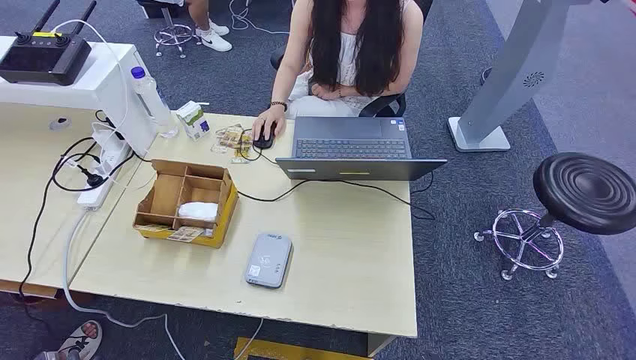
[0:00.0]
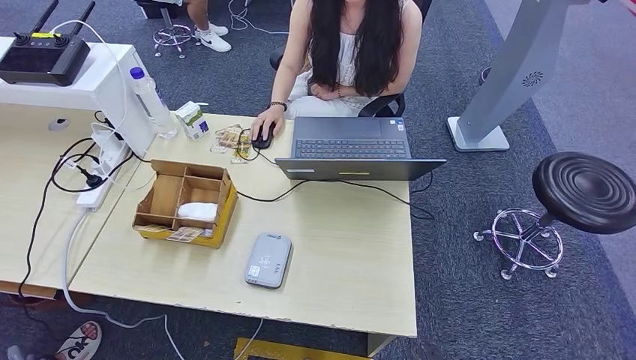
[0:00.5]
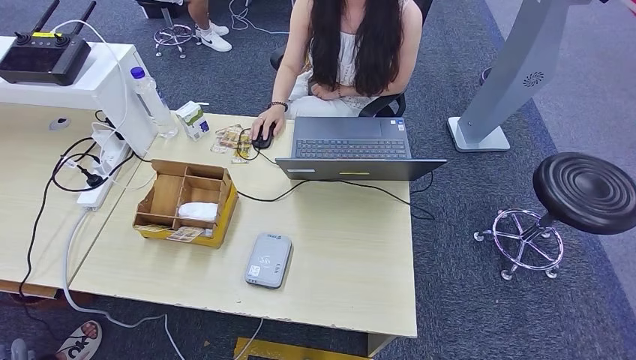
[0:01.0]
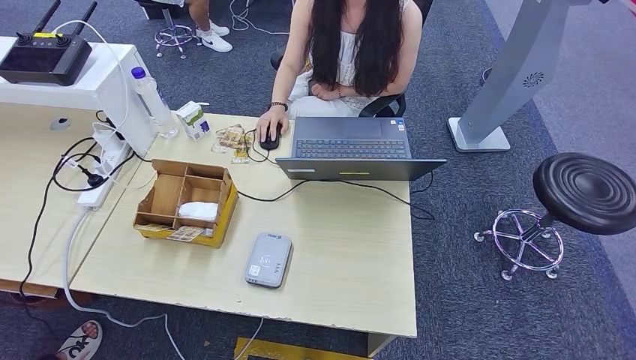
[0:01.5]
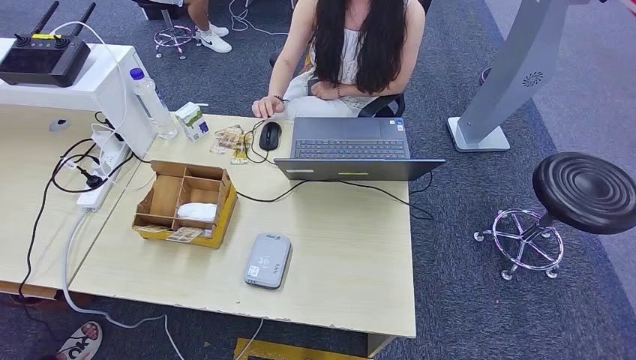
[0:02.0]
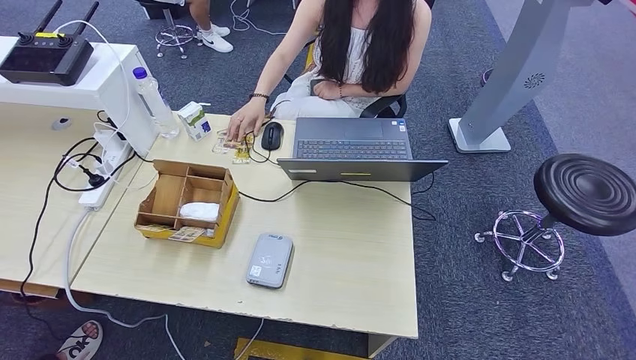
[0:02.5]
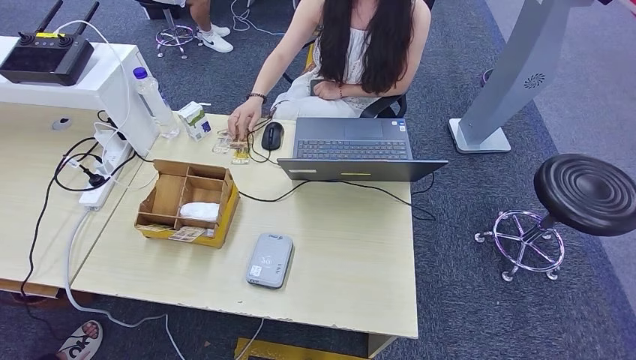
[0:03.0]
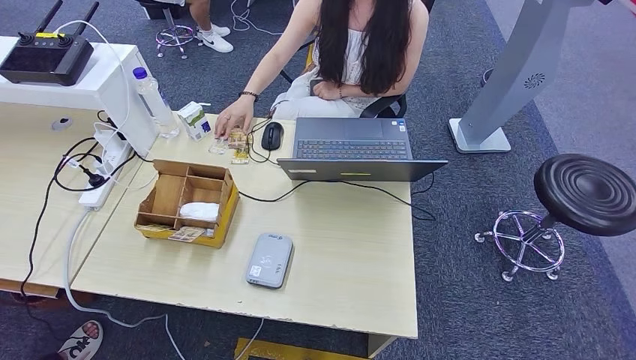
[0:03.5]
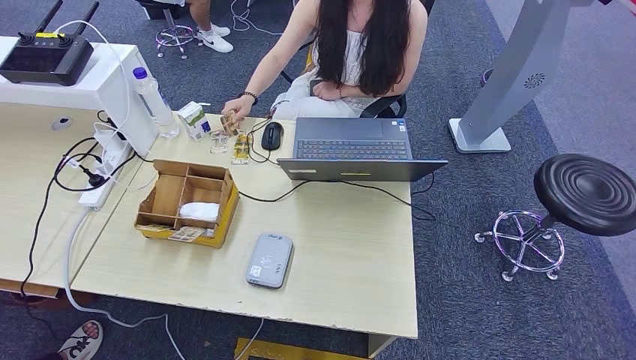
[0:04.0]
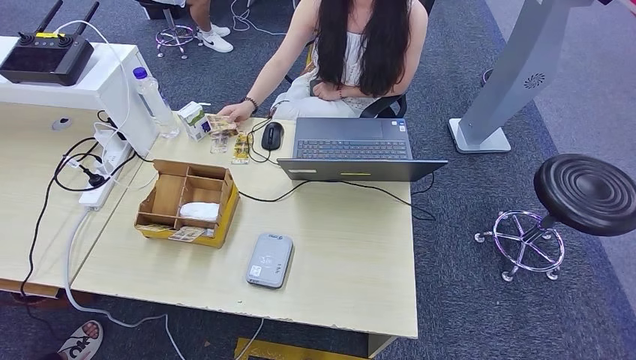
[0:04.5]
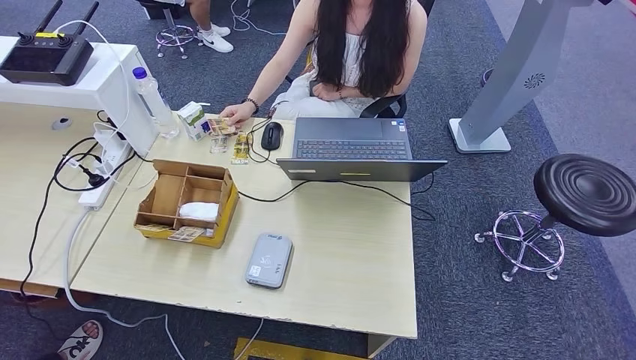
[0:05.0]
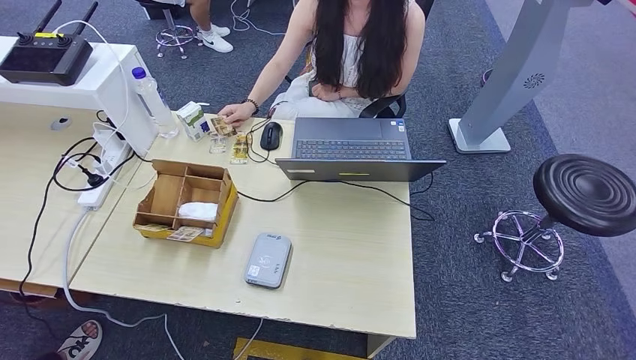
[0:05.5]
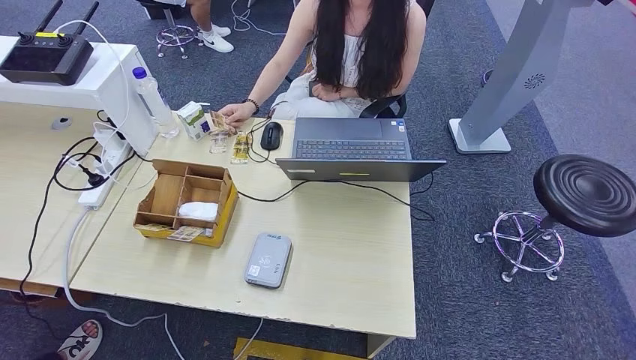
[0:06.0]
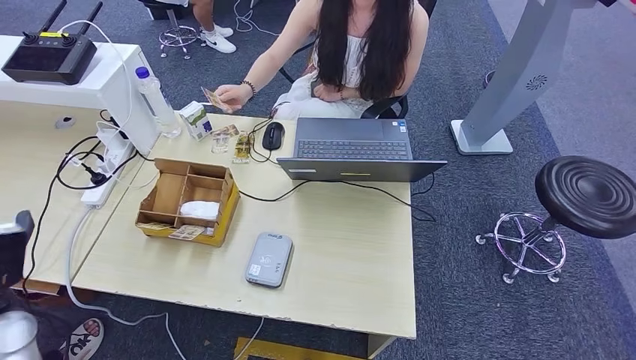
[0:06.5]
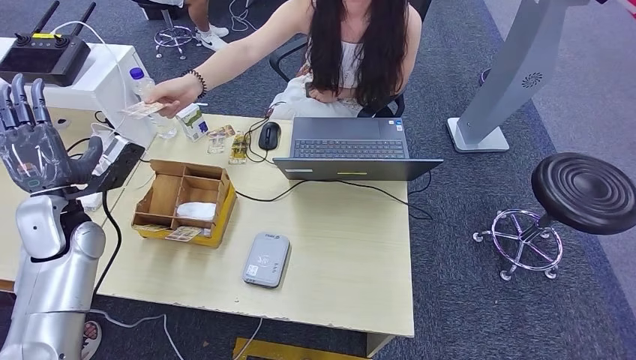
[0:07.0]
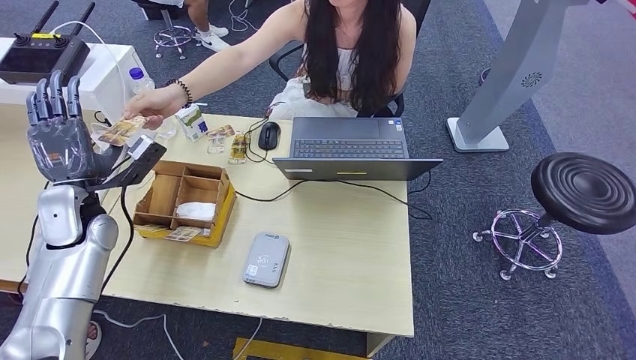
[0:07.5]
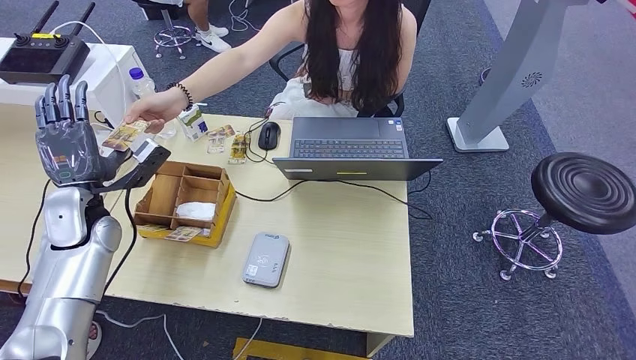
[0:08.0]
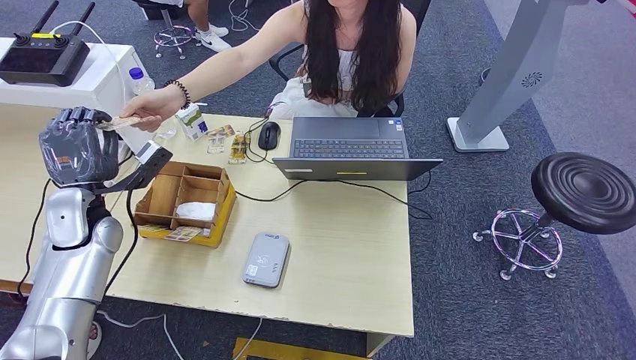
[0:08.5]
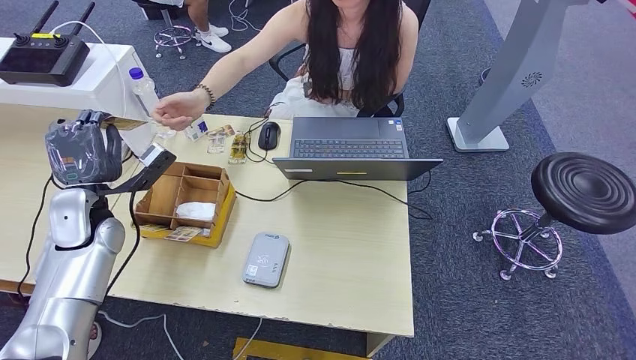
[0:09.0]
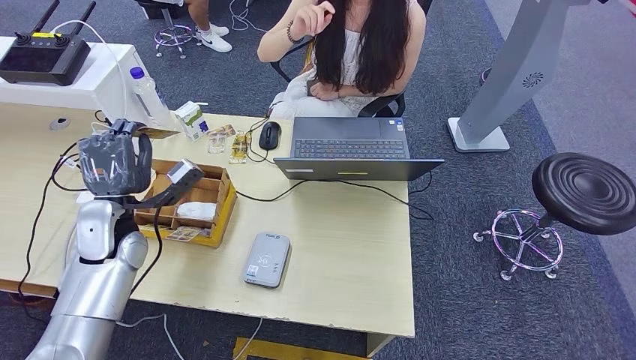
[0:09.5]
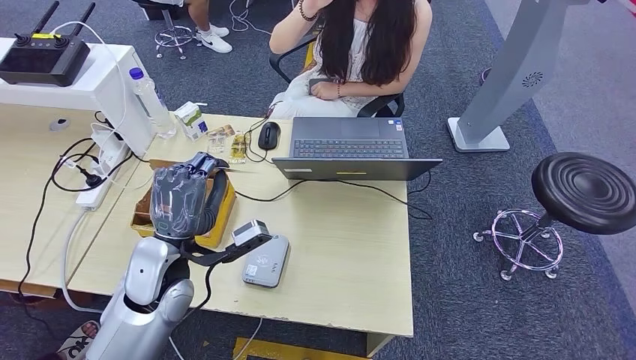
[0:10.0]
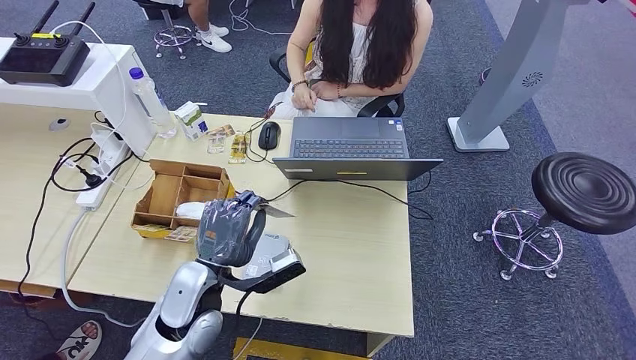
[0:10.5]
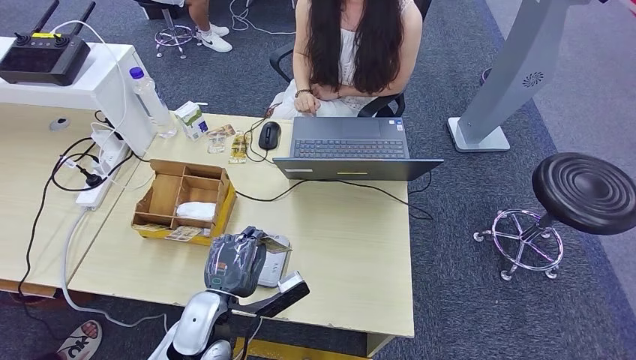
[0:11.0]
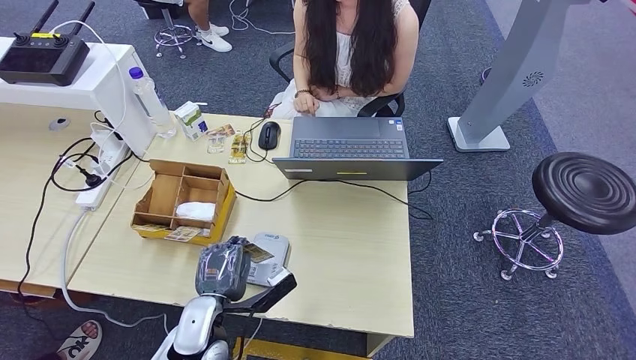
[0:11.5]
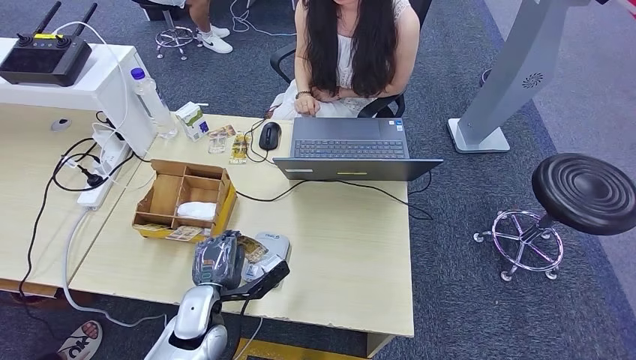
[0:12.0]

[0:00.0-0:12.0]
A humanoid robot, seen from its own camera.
Step, 0:00.0 to 0:09.0: Take the ID card from the person's hand.
0:02.0 to 0:04.0: The left hand travels to the right by approximately 15 cm.
0:04.0 to 0:06.0: The left hand is displaced to the left and upward by some 30 cm.
0:10.0 to 0:12.0: The left hand goes some 15 cm downward and backward.

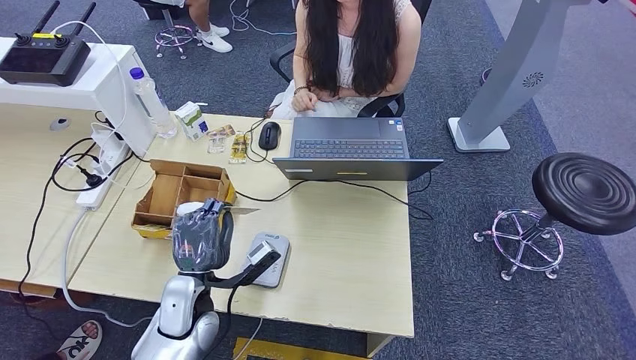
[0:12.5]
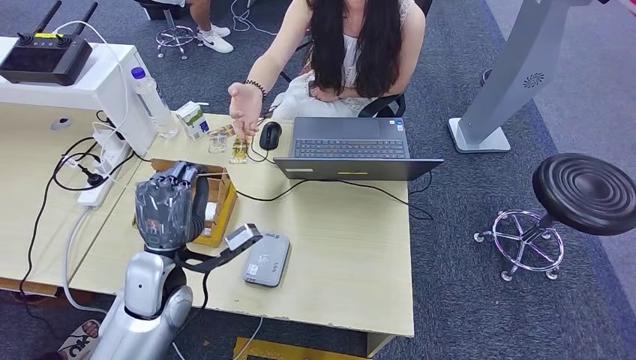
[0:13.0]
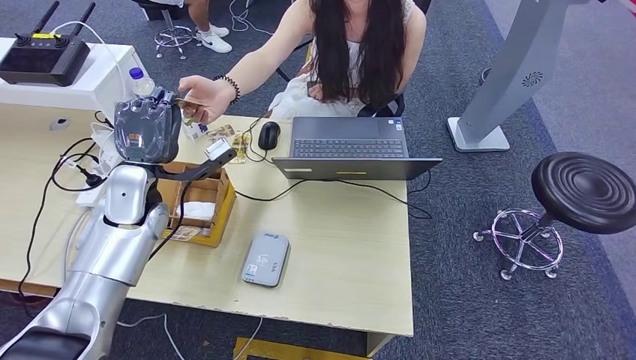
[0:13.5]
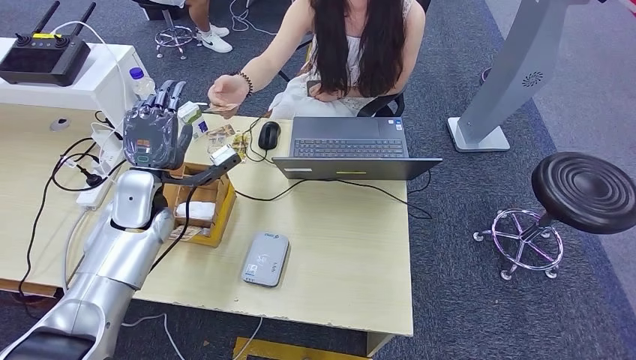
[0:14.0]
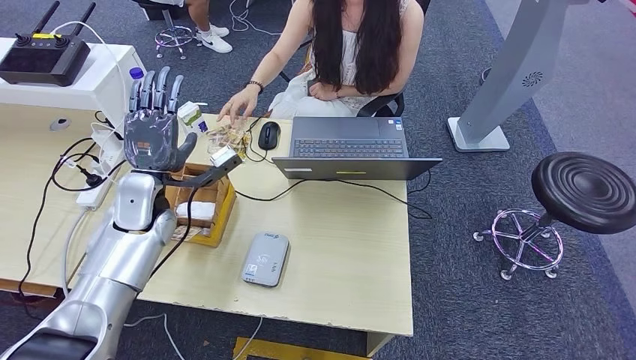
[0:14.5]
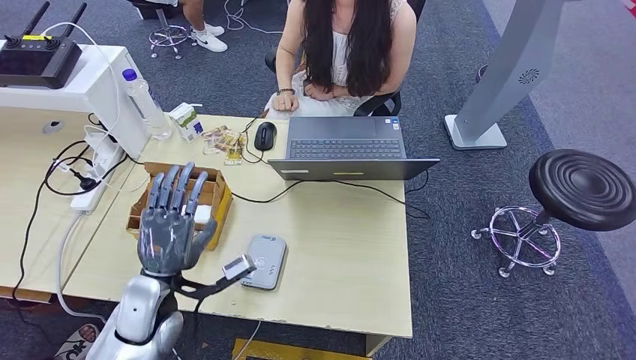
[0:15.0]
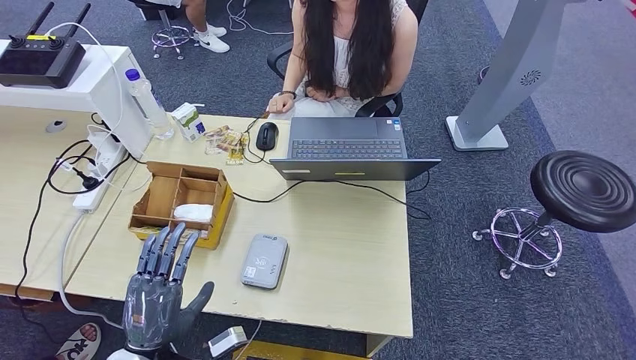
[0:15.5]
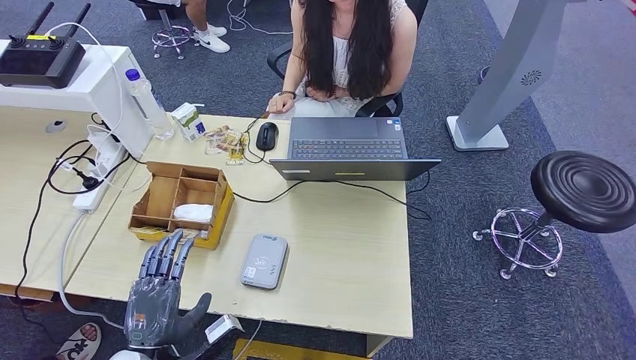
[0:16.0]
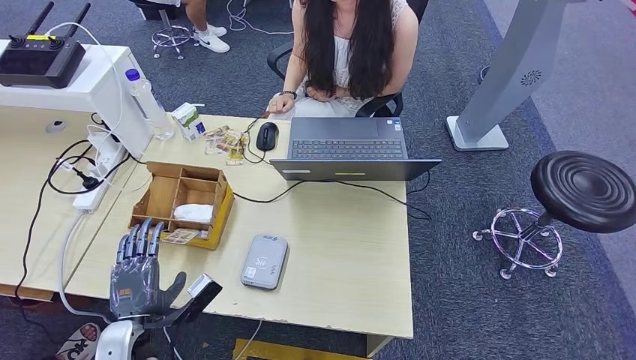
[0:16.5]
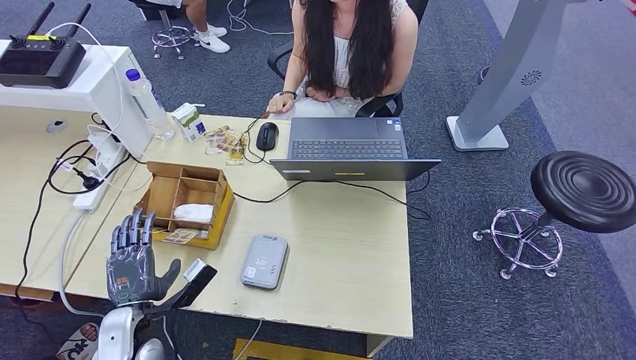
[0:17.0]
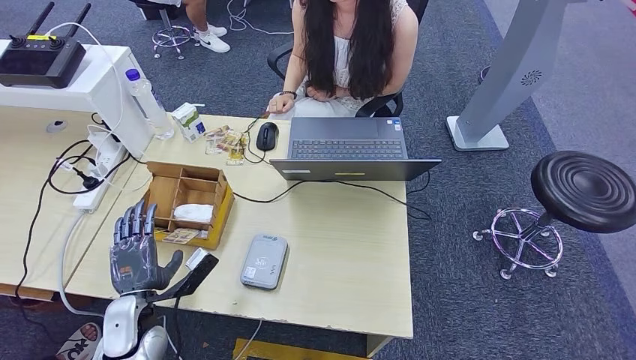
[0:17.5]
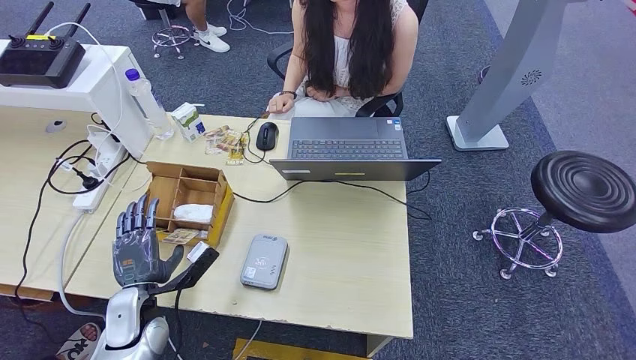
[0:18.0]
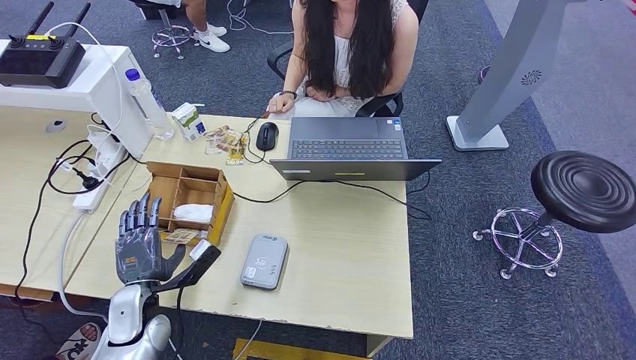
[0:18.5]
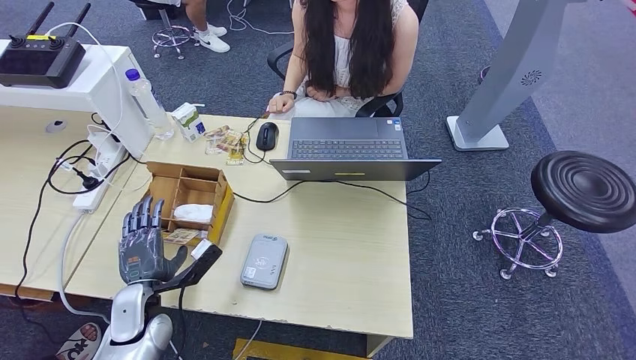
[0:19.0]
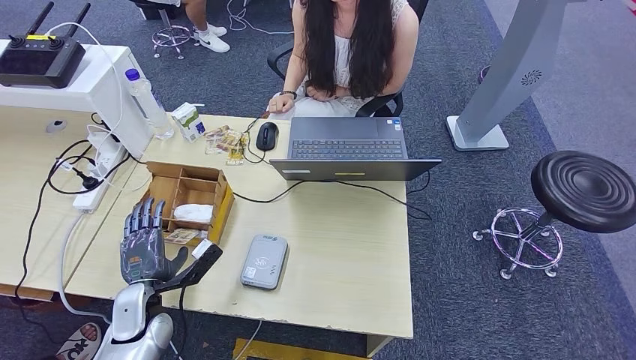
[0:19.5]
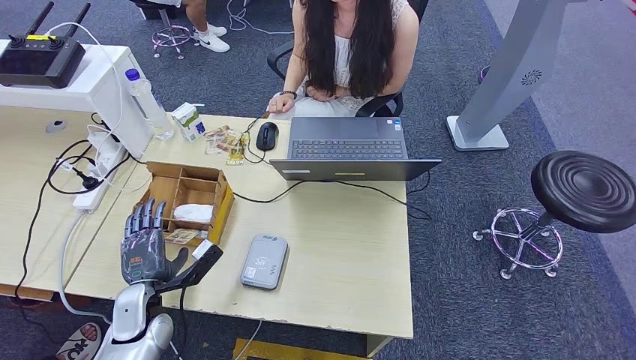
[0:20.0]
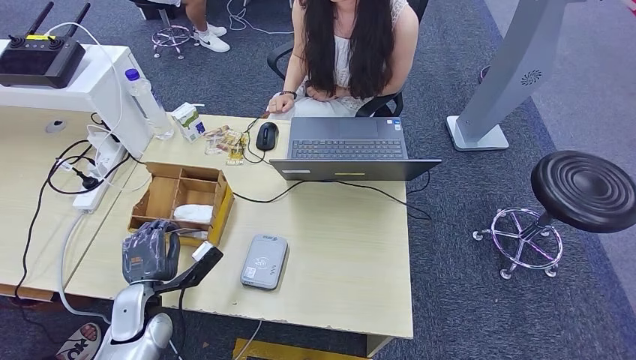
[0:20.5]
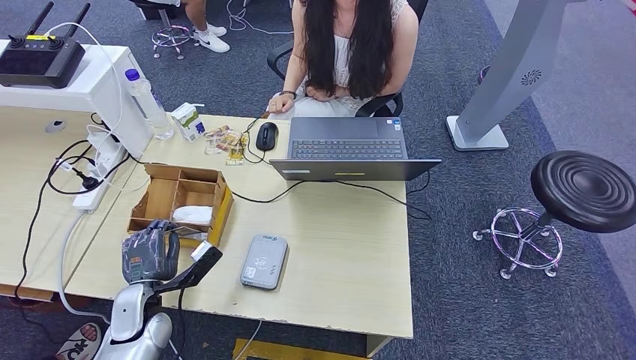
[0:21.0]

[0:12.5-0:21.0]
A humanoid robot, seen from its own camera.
Step, 0:13.5 to 0:14.5: Hand the ID card to the person.
Step, 0:15.5 to 0:20.5: Pick up the room key from the key card box.
0:12.5 to 0:14.5: The left hand is displaced forward, upward and to the left by about 20 cm.
0:16.5 to 0:19.0: The left hand shifts roughly 5 cm forward.
0:19.0 to 0:21.0: Both hands stay about where they are.
